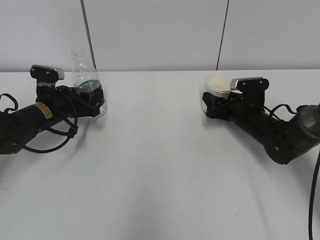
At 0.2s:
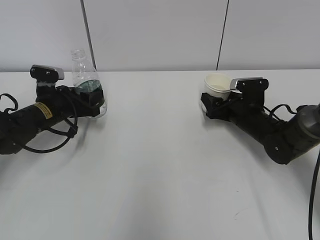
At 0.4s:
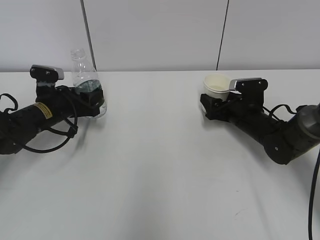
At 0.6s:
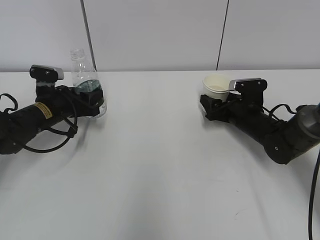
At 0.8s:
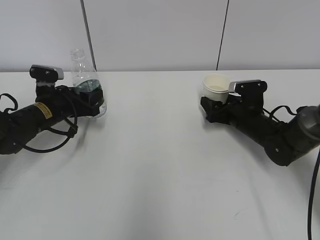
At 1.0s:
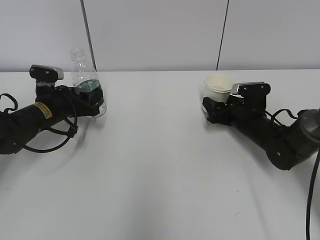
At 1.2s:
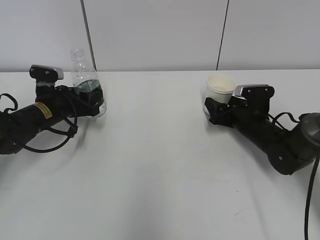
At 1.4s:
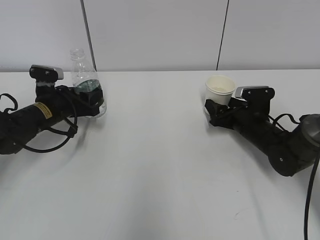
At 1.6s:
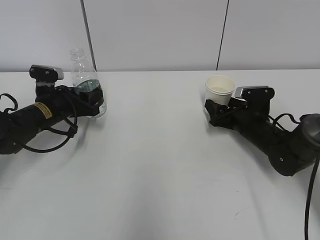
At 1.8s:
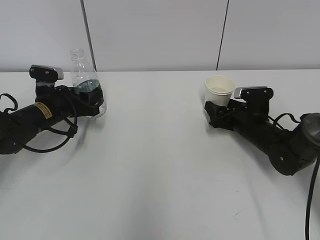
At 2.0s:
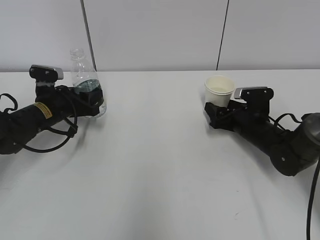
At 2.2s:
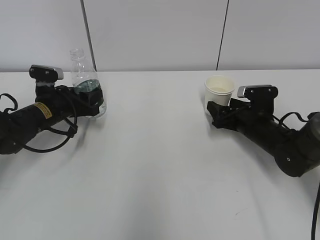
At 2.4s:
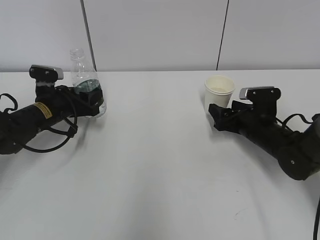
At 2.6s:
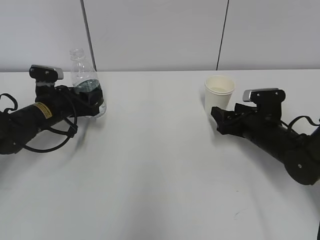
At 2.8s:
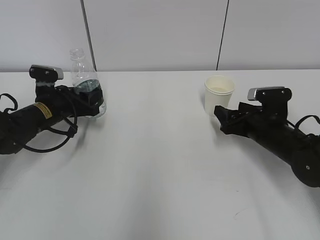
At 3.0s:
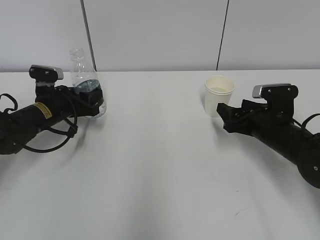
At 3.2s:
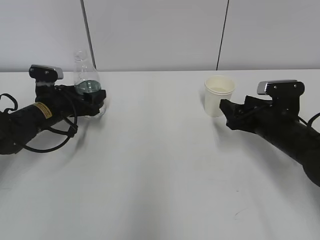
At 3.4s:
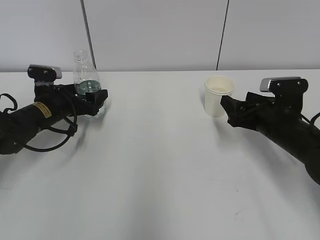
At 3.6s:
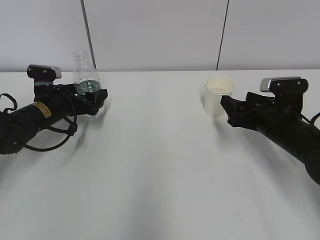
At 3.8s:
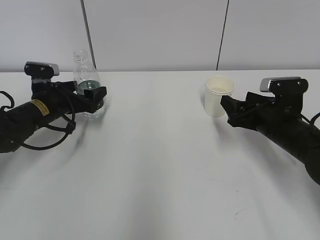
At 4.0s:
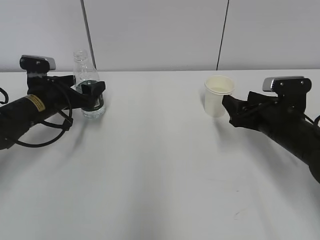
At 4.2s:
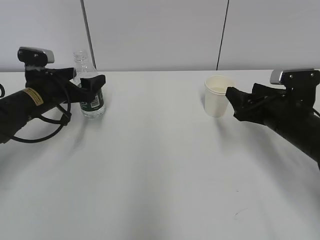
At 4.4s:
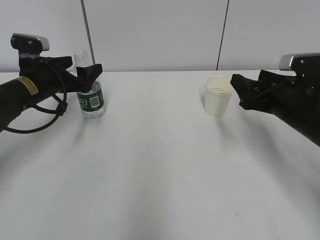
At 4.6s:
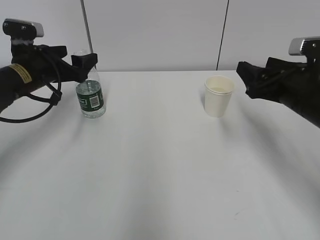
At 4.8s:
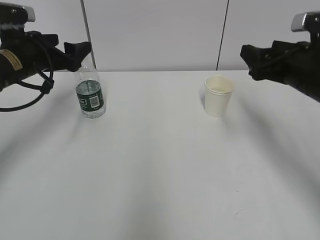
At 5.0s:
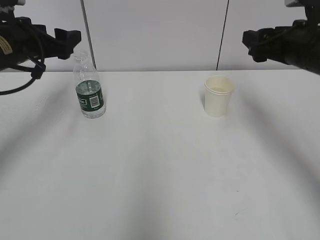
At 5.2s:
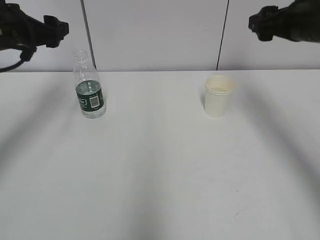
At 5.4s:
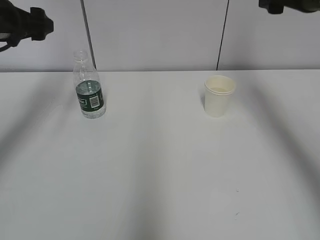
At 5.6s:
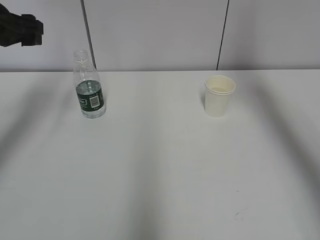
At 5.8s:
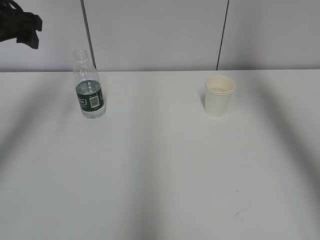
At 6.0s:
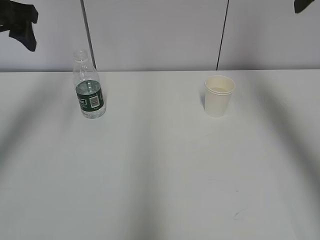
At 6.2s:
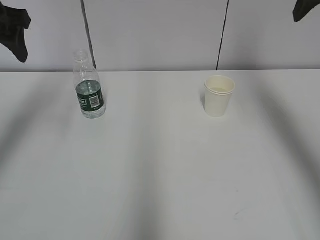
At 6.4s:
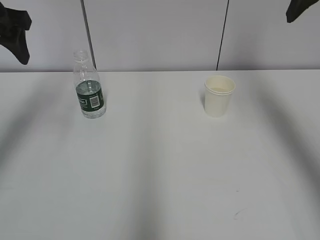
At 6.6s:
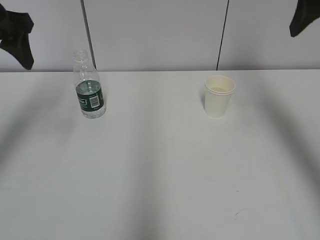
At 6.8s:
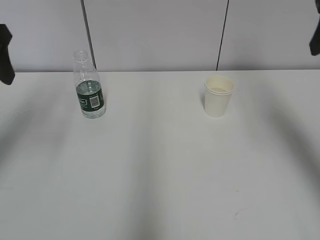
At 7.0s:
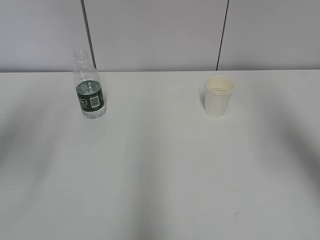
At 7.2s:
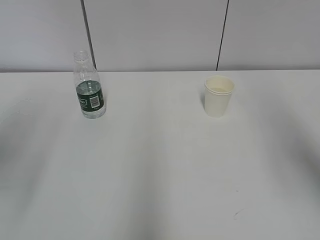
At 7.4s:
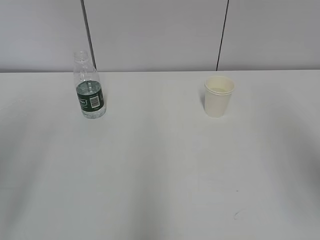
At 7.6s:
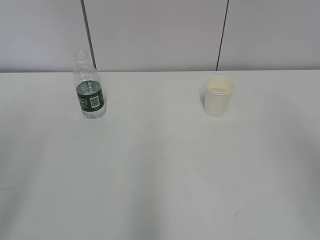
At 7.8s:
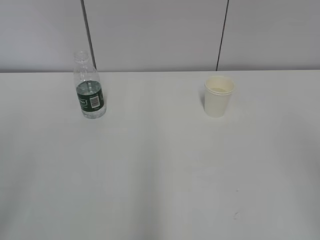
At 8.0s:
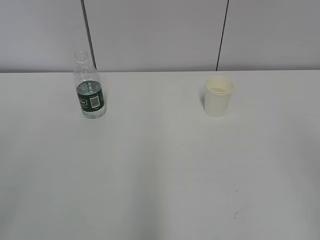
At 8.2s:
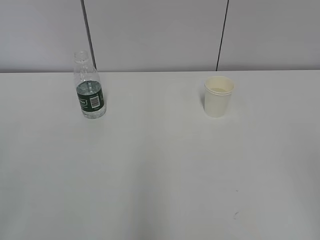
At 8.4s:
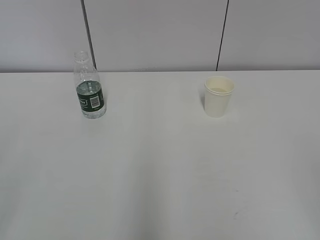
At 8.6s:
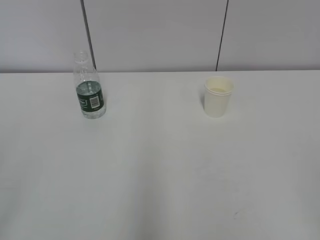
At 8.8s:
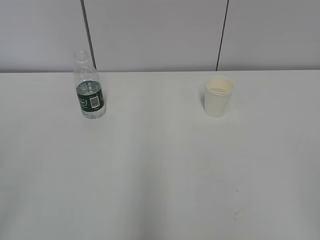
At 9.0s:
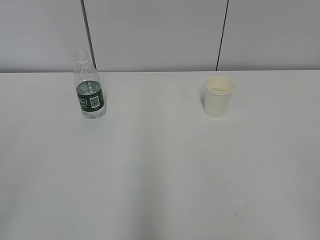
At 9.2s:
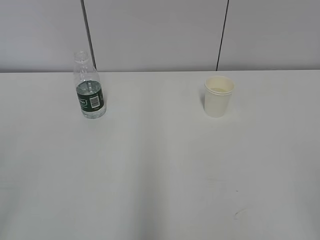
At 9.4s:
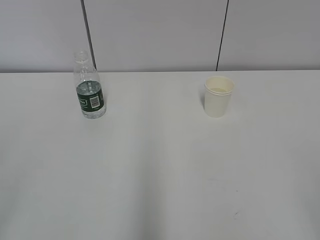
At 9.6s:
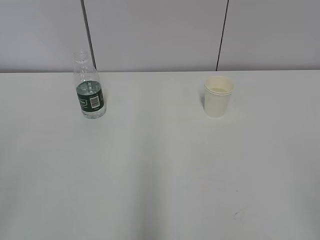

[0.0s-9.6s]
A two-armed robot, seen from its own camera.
0.0s to 1.6s: The right gripper opens.
1.6s to 3.2s: The left gripper opens. Meanwhile the right gripper heads backward and upward, covering about 10 cm.
3.2s to 4.8s: Both grippers travel together upward, approximately 10 cm. The left gripper opens.
4.8s to 6.4s: The two grippers go approximately 15 cm upward.
6.4s to 8.0s: Both grippers travel together backward, roughly 30 cm.

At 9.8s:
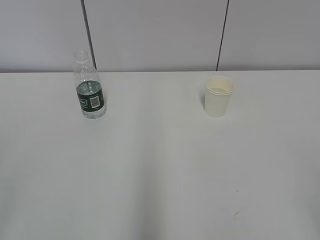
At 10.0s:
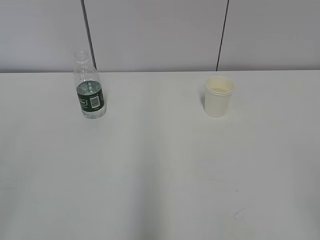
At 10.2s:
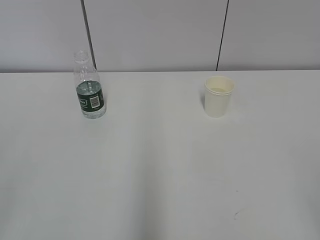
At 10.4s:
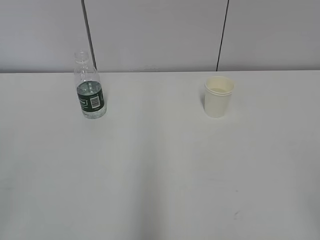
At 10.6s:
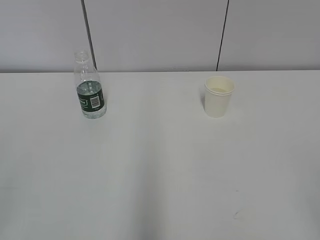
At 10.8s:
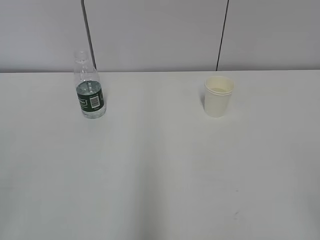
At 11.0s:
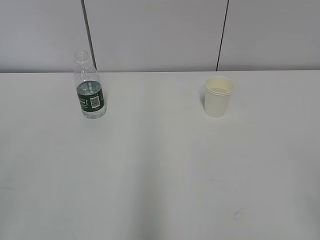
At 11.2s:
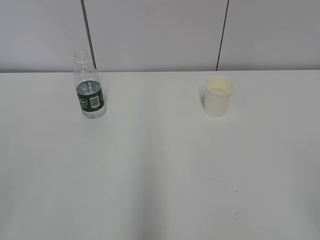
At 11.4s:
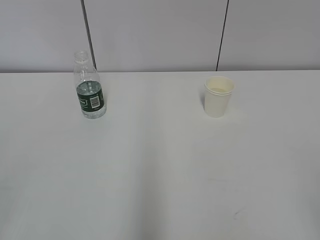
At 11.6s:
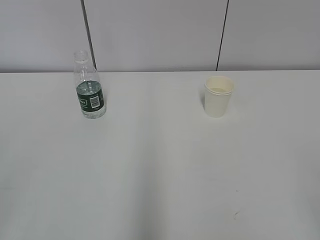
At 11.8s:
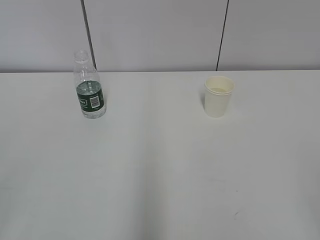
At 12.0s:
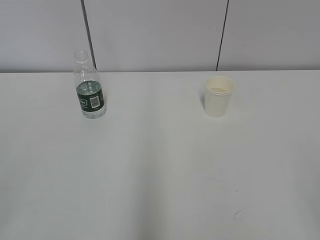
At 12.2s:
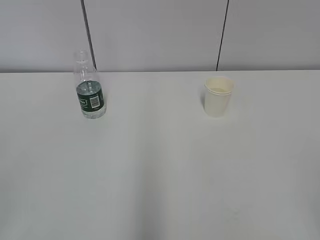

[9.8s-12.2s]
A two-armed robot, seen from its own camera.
11.0s to 12.2s: Both grippers stay about where they are.
